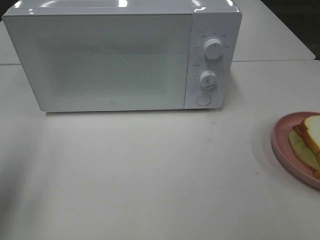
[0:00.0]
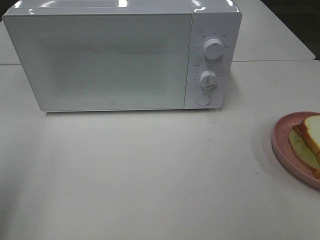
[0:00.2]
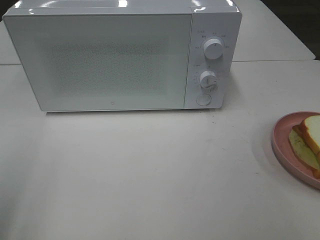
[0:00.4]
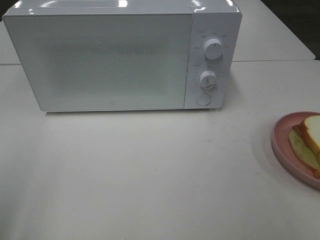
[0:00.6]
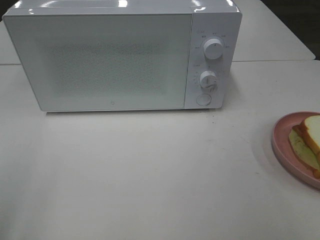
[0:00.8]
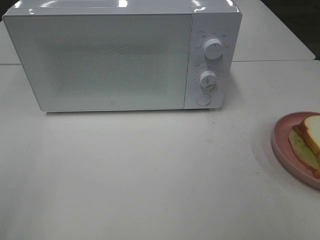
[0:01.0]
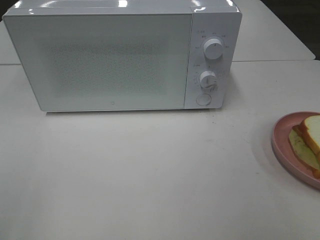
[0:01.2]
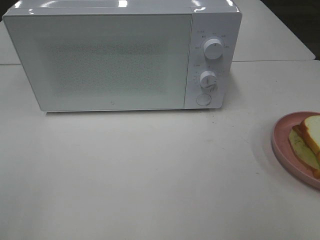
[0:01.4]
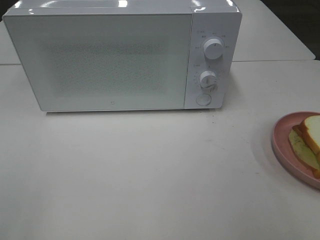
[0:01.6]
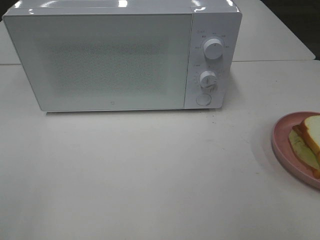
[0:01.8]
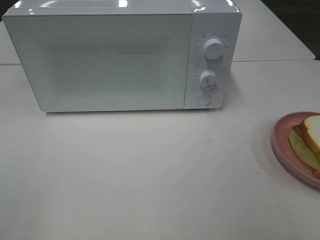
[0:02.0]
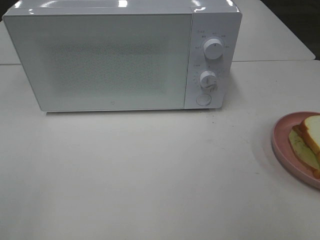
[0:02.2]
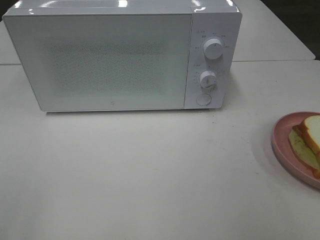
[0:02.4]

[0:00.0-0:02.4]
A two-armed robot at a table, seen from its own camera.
Task of the whole recording: Heat Sandwich.
0:00.0 to 0:01.2: The left gripper shifts approximately 15 cm backward.
0:01.2 to 0:02.4: Both grippers stay about where they are.
